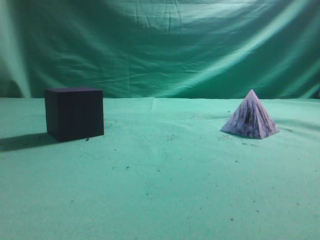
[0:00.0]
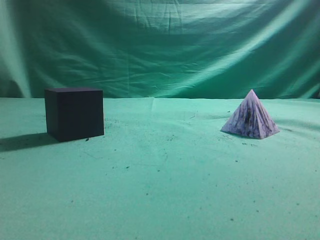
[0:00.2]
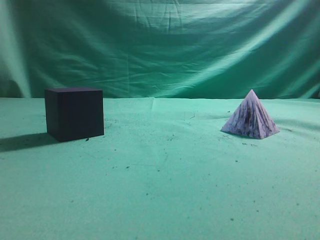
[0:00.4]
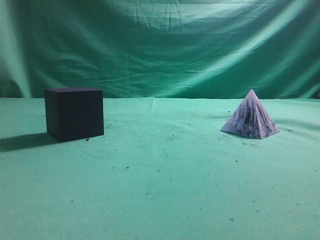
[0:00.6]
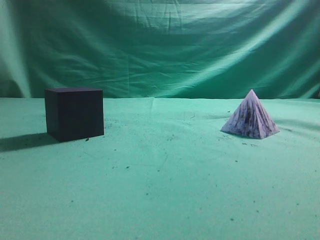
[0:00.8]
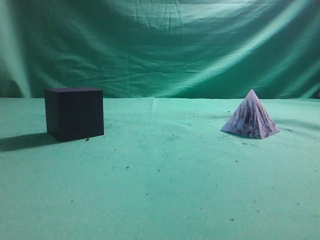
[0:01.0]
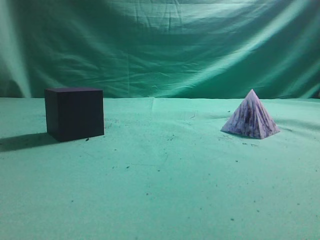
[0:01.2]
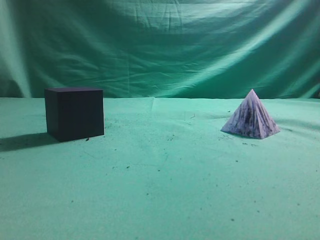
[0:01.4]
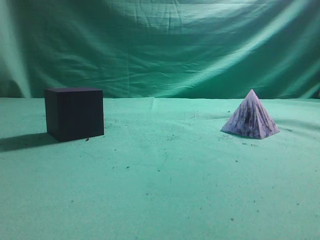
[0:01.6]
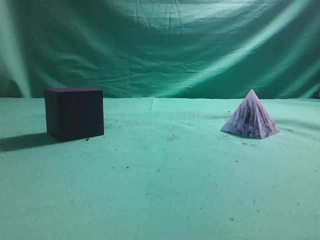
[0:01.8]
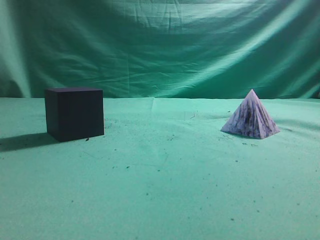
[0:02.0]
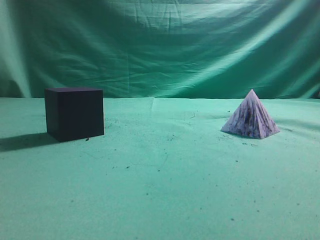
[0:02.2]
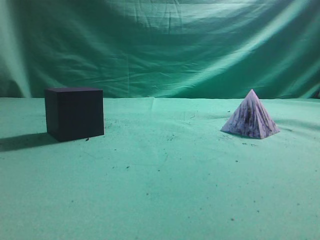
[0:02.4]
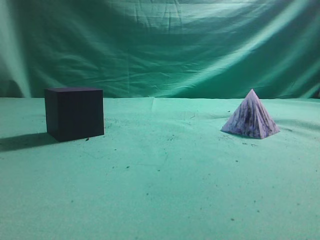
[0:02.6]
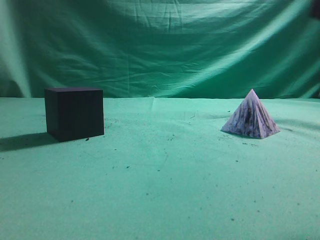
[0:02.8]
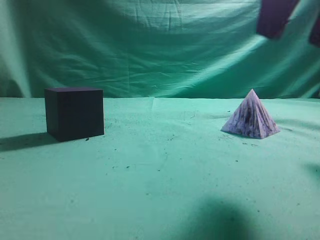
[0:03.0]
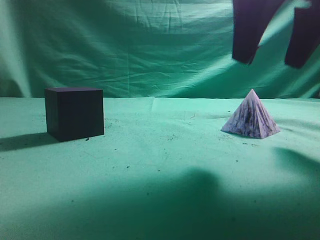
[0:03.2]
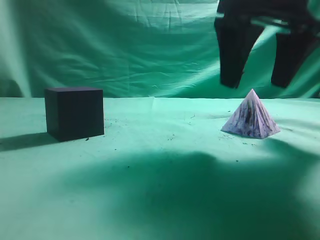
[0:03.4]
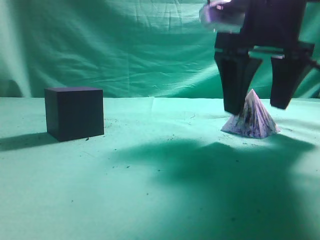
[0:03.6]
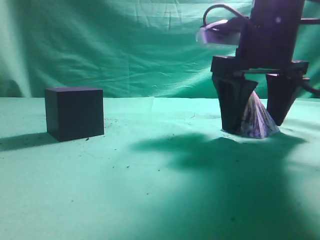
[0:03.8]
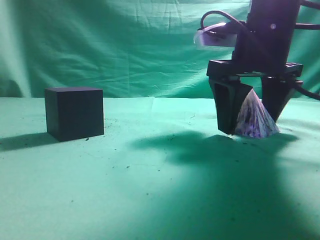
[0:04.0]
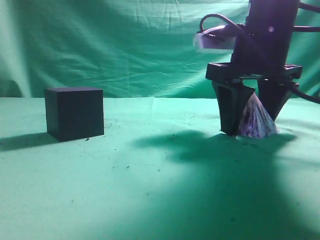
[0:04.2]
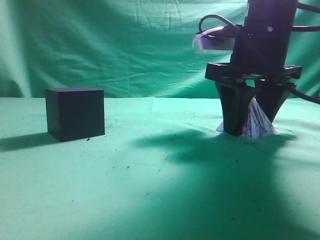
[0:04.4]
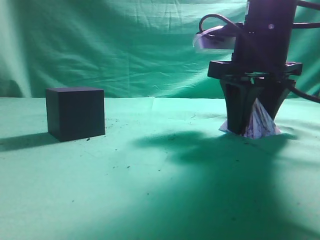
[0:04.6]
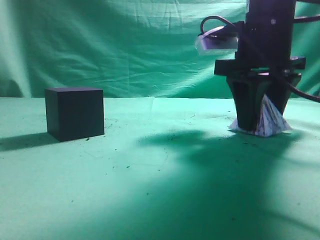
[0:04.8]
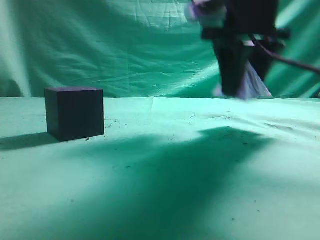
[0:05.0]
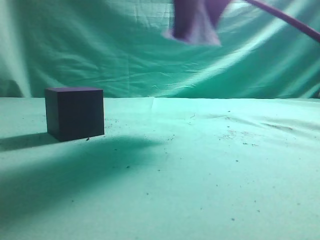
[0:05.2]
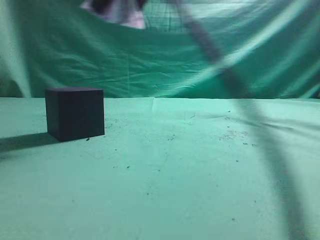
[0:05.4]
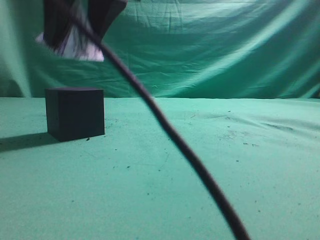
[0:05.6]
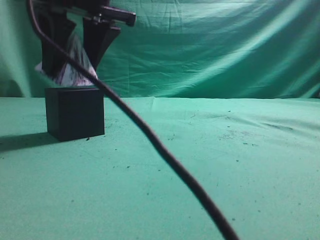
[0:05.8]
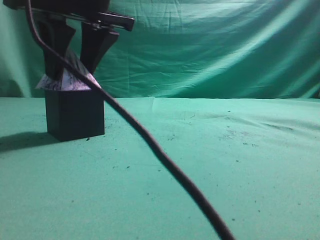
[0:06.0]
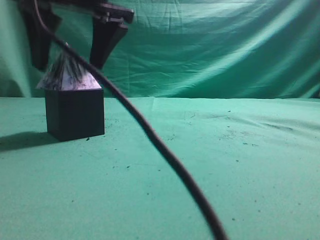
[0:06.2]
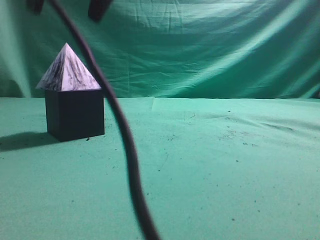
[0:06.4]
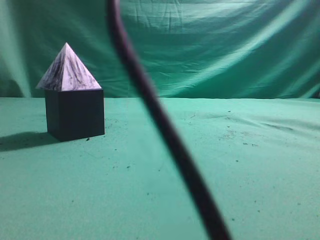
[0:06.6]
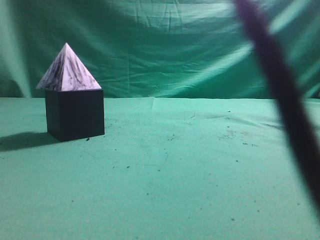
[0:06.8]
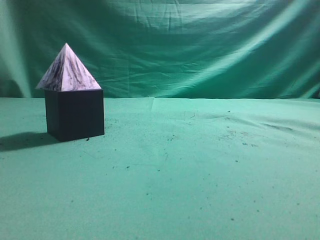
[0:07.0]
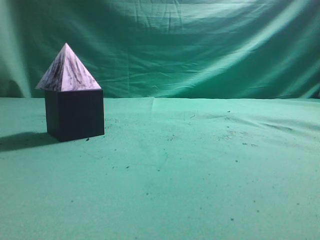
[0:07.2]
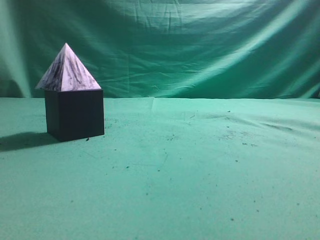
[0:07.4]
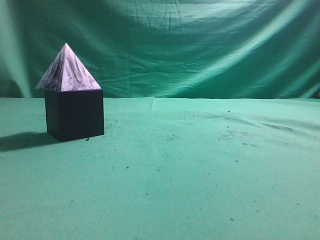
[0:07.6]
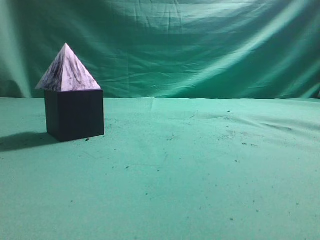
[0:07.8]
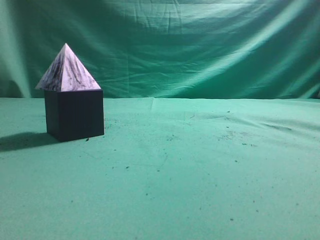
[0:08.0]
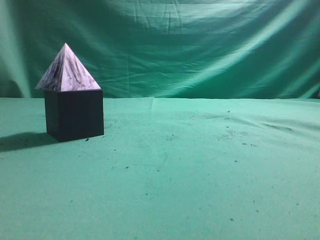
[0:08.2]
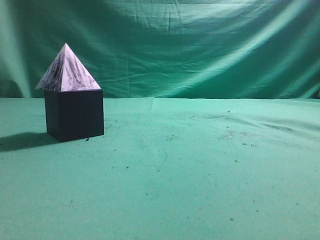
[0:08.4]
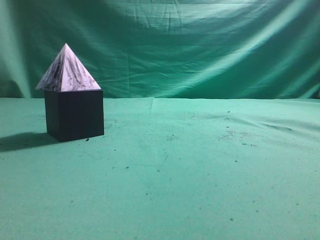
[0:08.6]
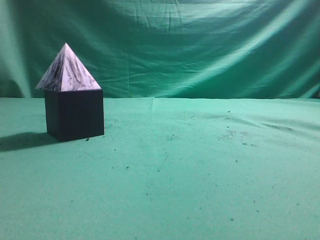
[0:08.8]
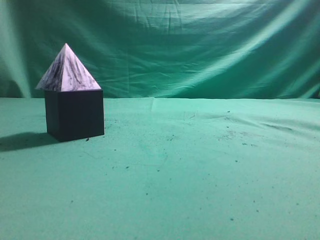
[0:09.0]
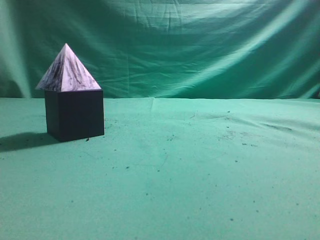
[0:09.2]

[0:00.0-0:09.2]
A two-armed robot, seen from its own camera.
Task of the whole recording: pick up the square pyramid from the table and place it on the cube block.
Step, 0:00.0 to 0:05.0: Grasp the triangular block.
Step, 0:05.2 to 0:06.2: Place the block onto the cube-shaped block.
0:01.6 to 0:03.0: The right gripper moves forward and to the left, about 20 cm, and opens.
0:03.0 to 0:04.6: The right gripper heads forward and downward, covering about 15 cm, and closes.
0:04.6 to 0:06.2: The right gripper is displaced to the left and upward by roughly 20 cm.
0:06.2 to 0:07.6: The right gripper travels to the right, backward and upward by about 35 cm, and closes.

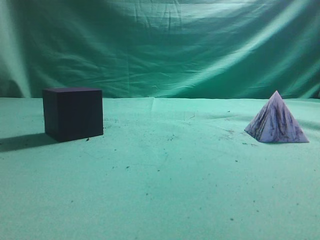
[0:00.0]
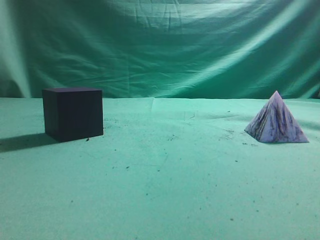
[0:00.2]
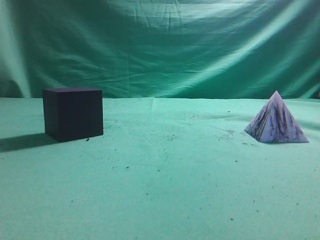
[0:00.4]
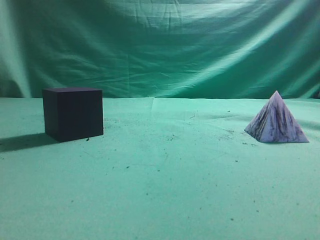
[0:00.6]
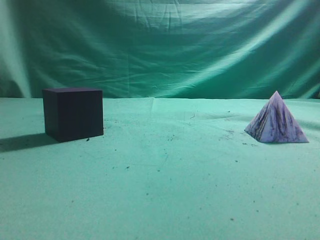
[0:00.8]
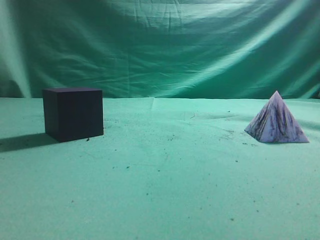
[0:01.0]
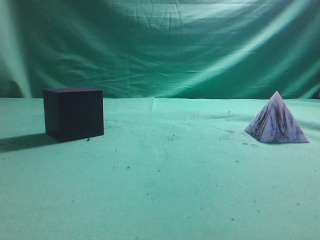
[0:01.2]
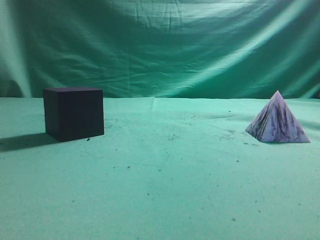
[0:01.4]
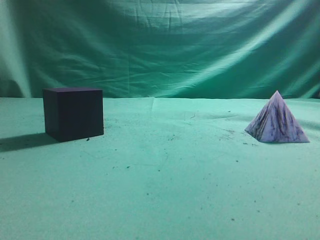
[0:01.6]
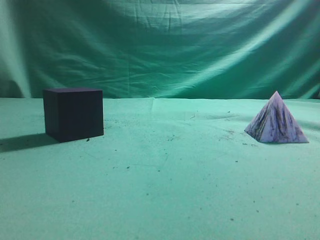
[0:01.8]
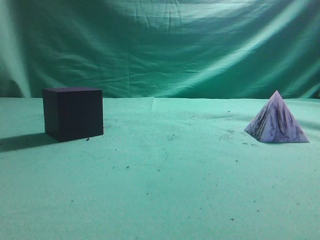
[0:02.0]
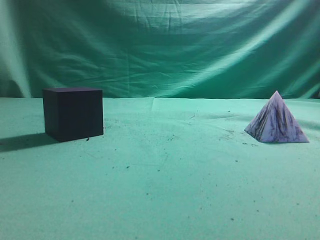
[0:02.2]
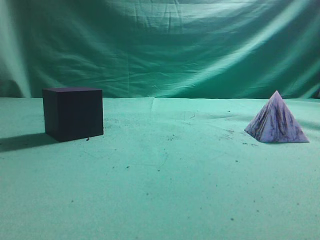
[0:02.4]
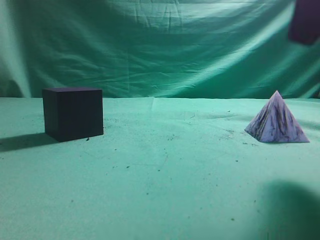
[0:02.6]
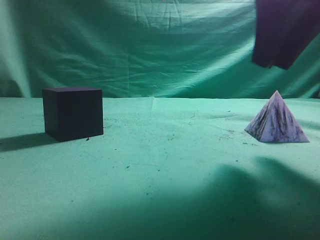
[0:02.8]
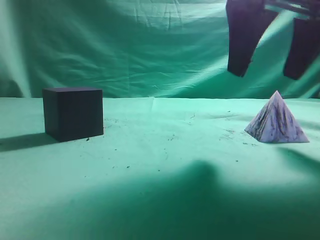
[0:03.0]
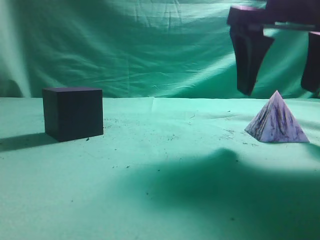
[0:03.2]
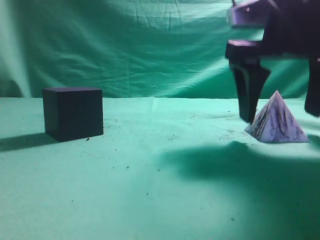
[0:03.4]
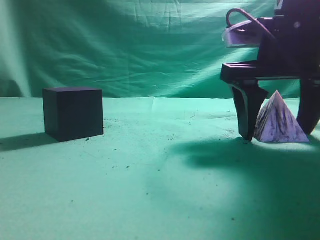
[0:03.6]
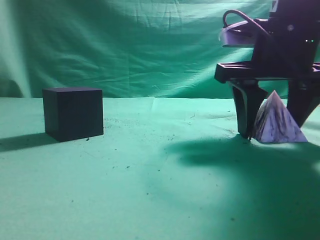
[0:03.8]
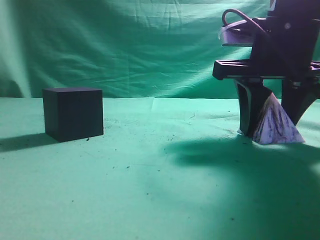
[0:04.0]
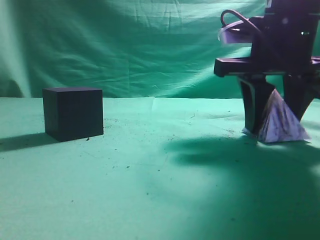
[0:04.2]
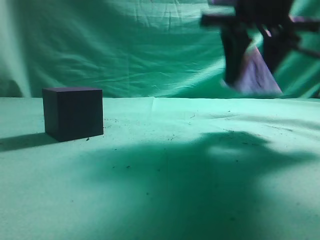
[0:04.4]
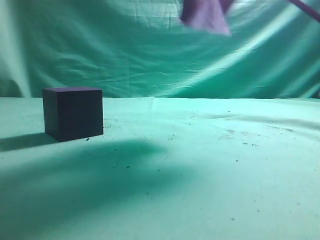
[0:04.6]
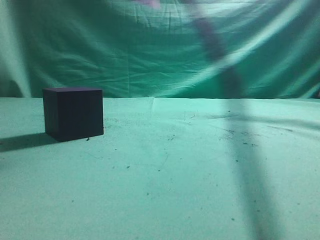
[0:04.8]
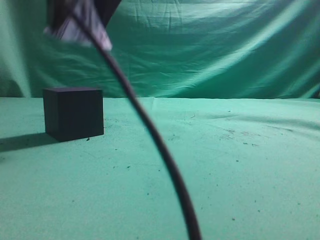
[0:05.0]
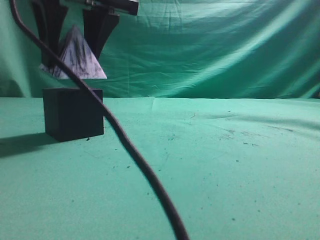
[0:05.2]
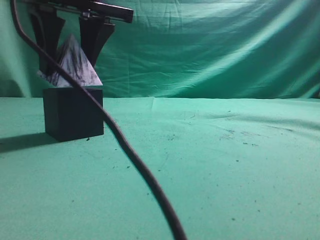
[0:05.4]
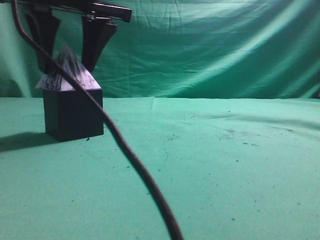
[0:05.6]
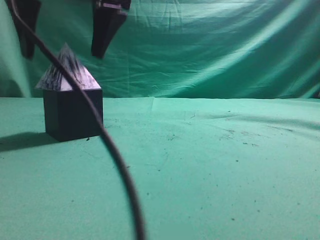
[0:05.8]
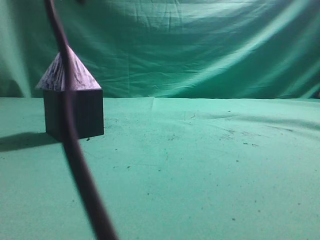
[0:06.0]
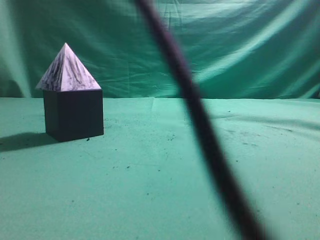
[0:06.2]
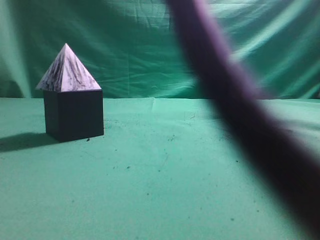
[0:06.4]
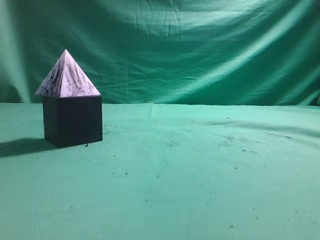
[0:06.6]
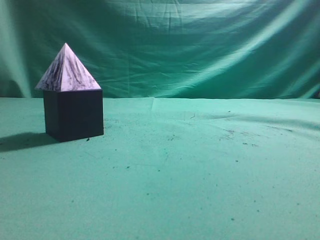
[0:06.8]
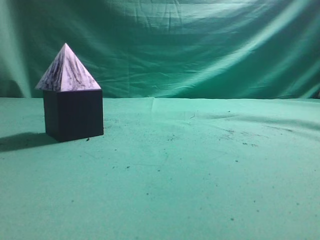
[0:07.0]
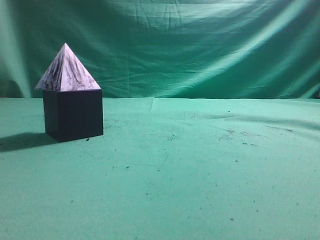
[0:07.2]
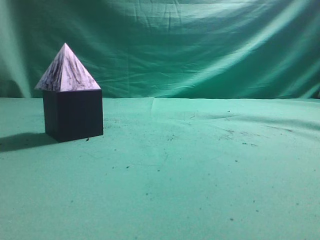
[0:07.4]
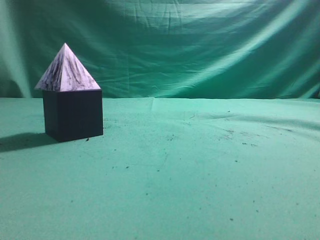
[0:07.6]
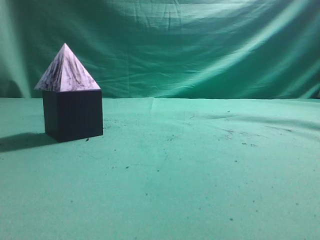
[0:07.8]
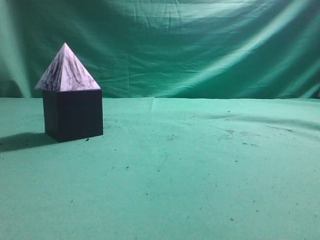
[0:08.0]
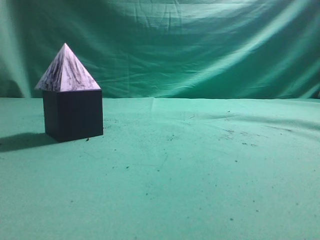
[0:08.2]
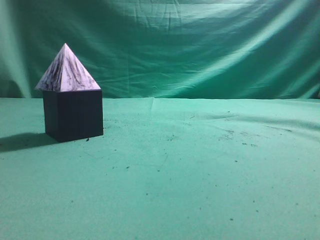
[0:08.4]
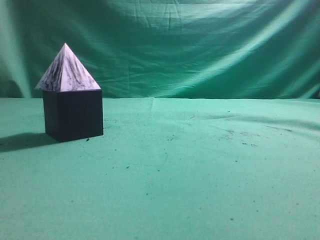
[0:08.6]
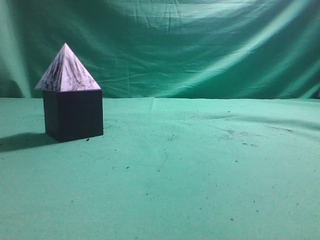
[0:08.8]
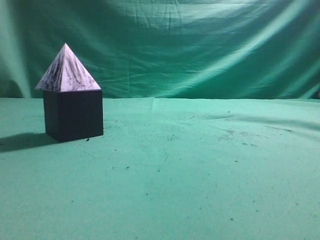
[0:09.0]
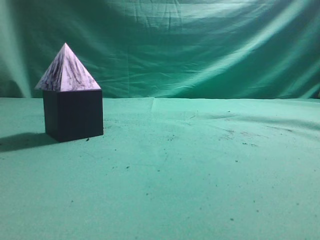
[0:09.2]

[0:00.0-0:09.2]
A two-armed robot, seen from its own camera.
Task of the whole recording: pick up the square pyramid from the table and place it on the cube block.
Step, 0:00.0 to 0:04.2: Grasp the triangular block.
Step, 0:04.4 to 0:05.8: Place the block onto the cube-shaped block.
0:01.6 to 0:03.0: The right gripper travels forward and to the left by some 25 cm, and opens its fingers.
0:03.0 to 0:04.6: The right gripper moves upward, to the left and forward, roughly 15 cm, and closes.
0:04.6 to 0:06.2: The right gripper goes approximately 15 cm to the left and upward, and closes.
0:06.2 to 0:07.6: The right gripper moves to the right and backward, approximately 40 cm.
